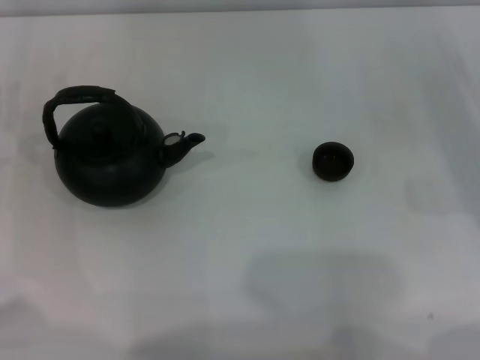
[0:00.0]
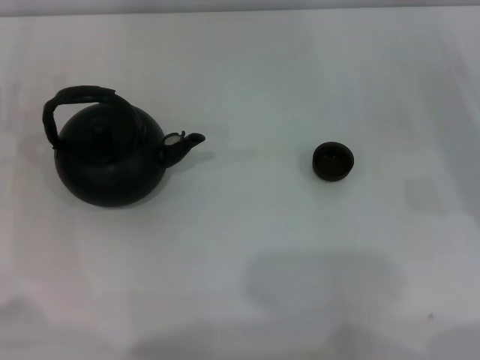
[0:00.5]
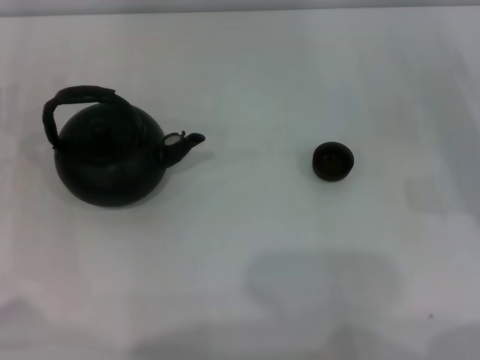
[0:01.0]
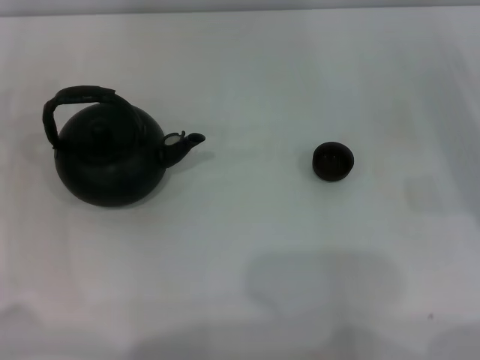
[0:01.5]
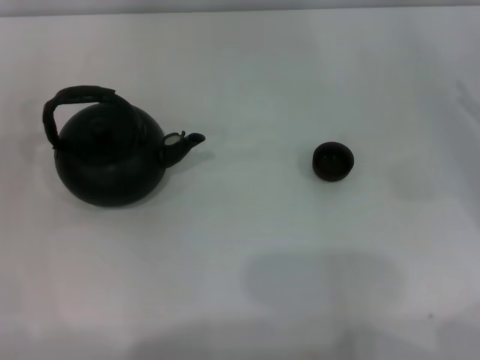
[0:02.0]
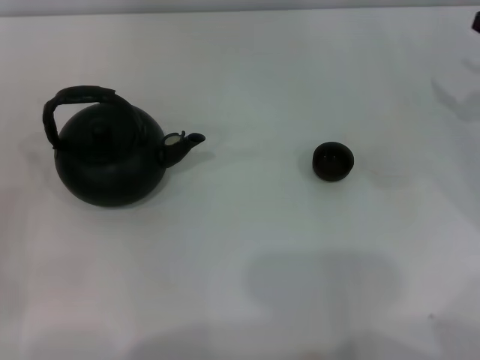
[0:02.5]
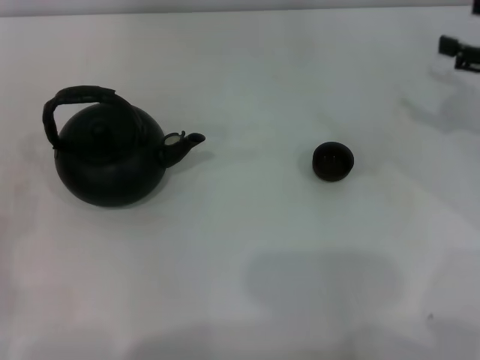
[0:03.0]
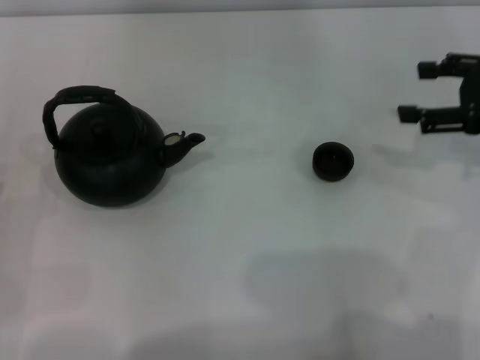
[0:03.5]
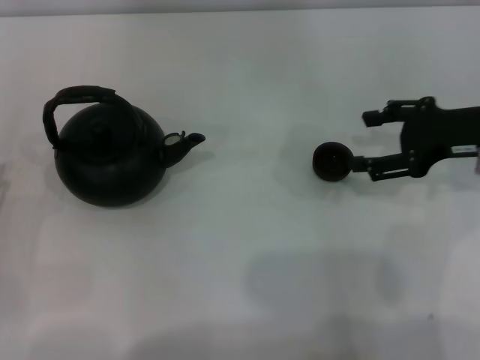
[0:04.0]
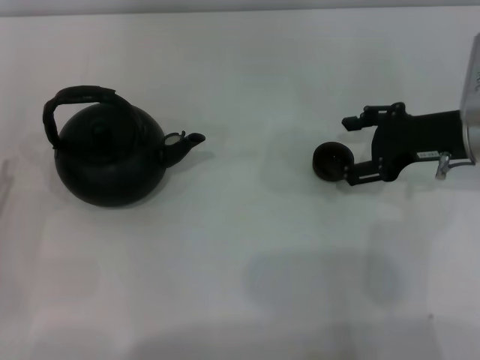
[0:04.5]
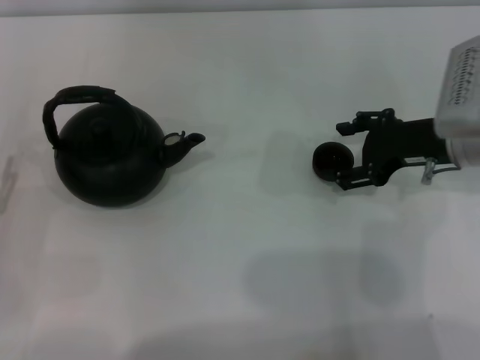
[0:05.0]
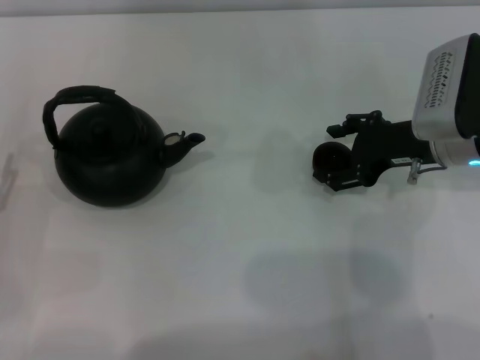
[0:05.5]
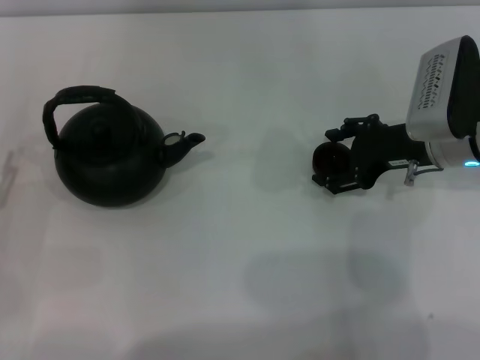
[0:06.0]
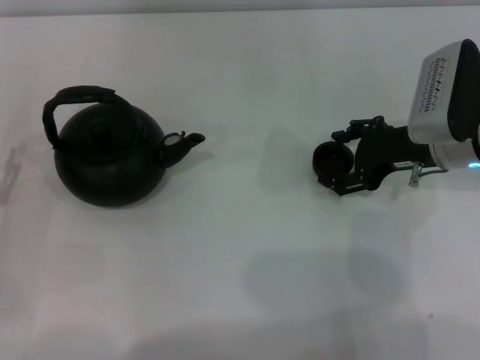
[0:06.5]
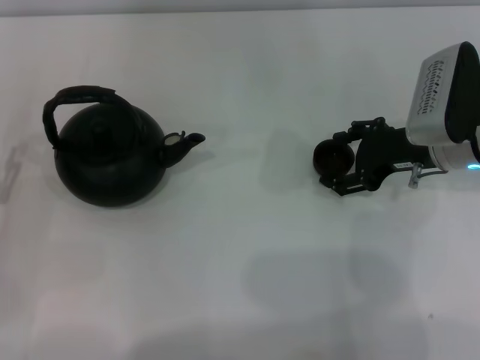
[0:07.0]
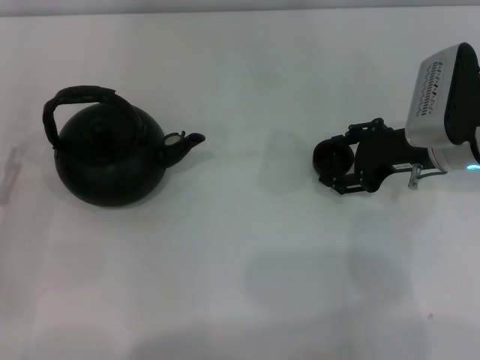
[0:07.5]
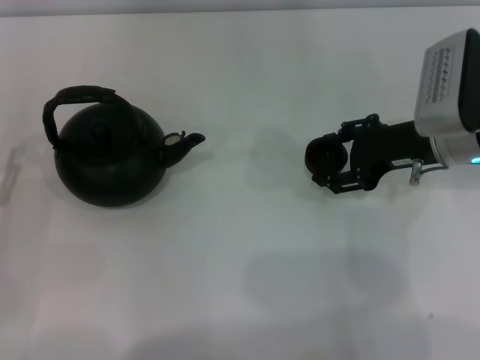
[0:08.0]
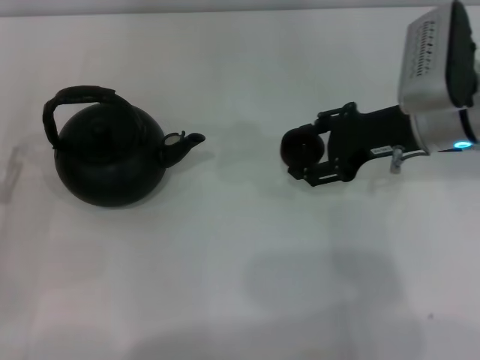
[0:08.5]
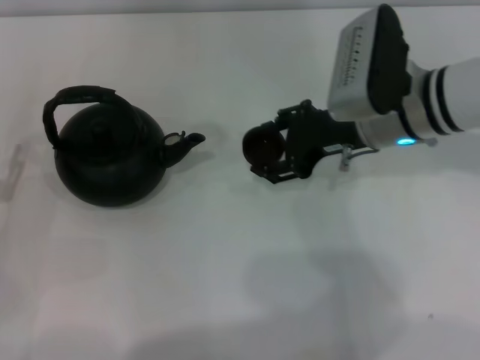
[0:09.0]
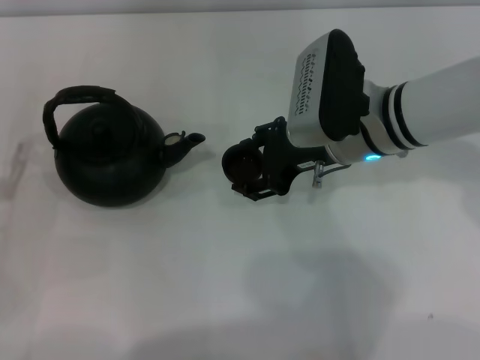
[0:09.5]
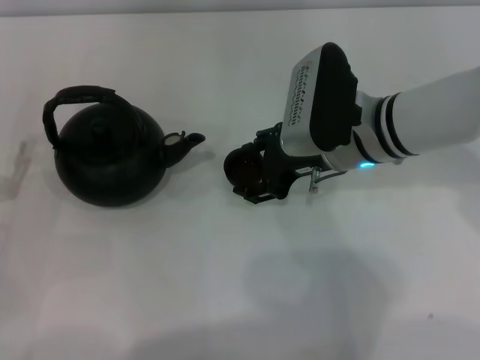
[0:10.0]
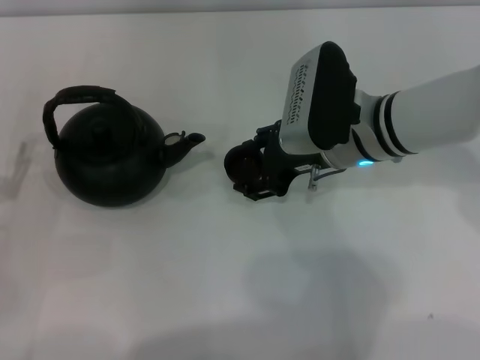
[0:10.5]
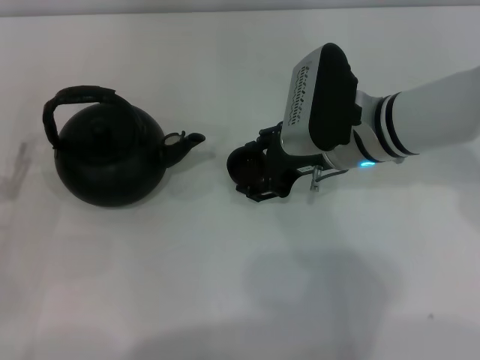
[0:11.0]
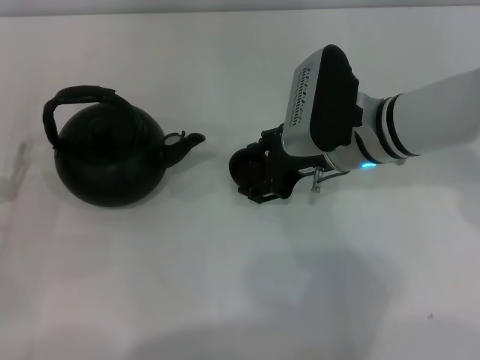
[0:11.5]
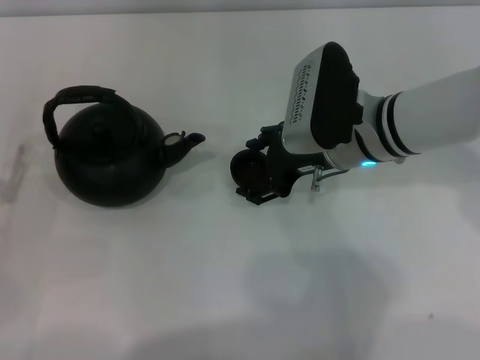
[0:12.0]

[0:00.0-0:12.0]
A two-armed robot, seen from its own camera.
Task of the whole recording: Grasp the handle of the teapot with one hand and pour tea into the teacup.
Step, 0:00.0 to 0:08.5: Pick up the teacup with the right gripper.
0:02.0 to 0:04.0: The right gripper shifts some 10 cm to the left and upward.
0:04.0 to 0:06.0: The right gripper shifts roughly 5 cm to the left.
0:06.0 to 0:08.0: The right gripper closes.
0:08.0 to 0:10.0: The right gripper travels to the left by roughly 10 cm.
0:10.0 to 0:12.0: The right gripper opens up.

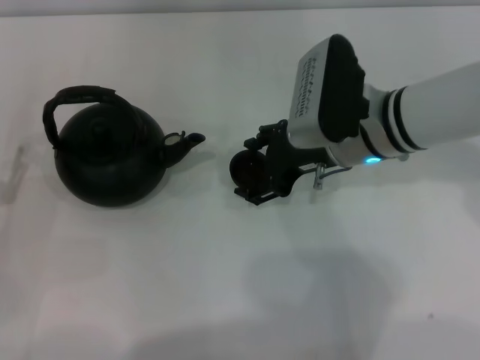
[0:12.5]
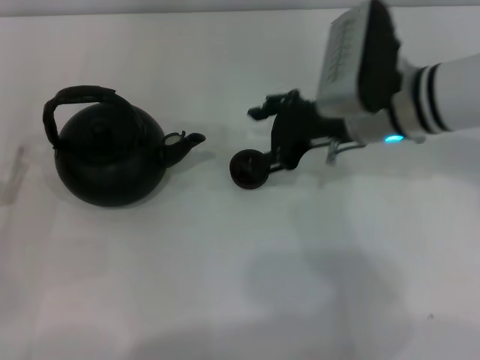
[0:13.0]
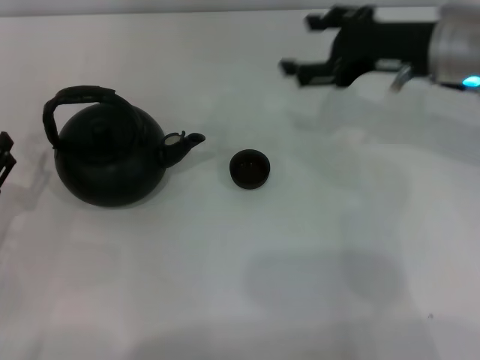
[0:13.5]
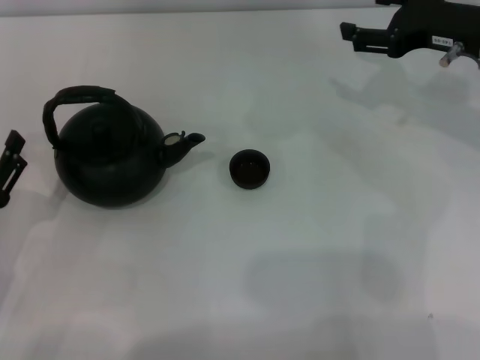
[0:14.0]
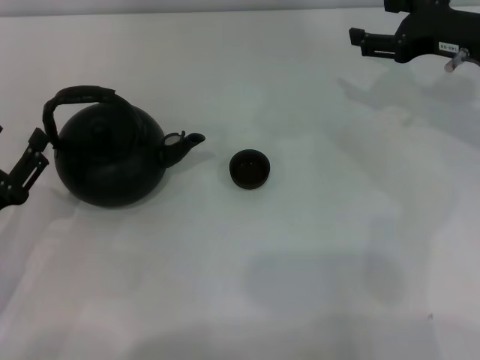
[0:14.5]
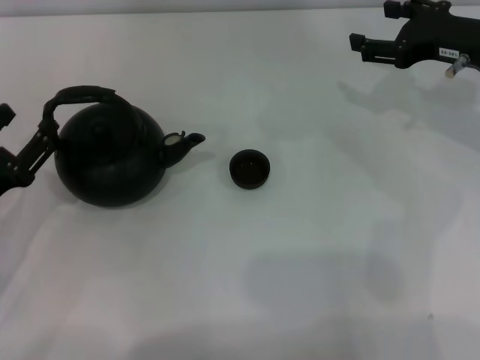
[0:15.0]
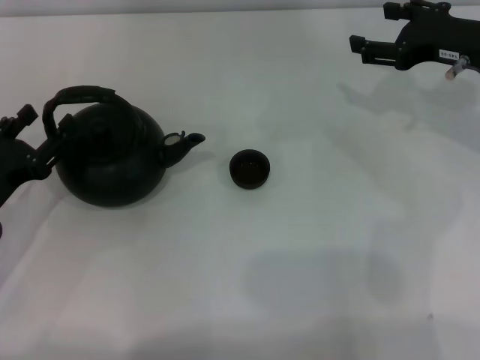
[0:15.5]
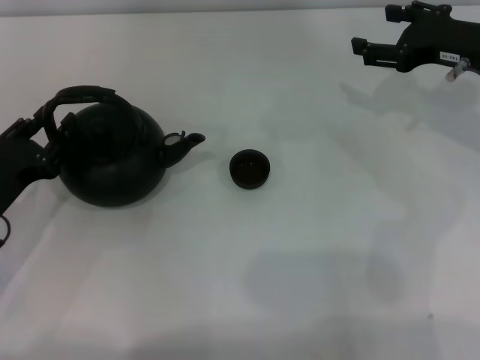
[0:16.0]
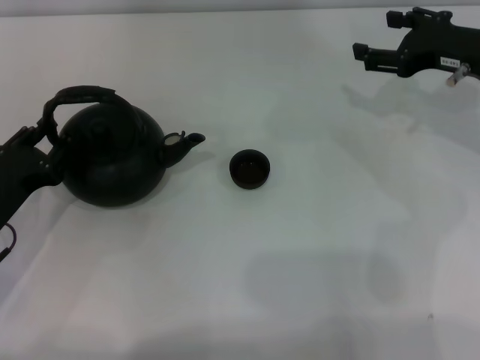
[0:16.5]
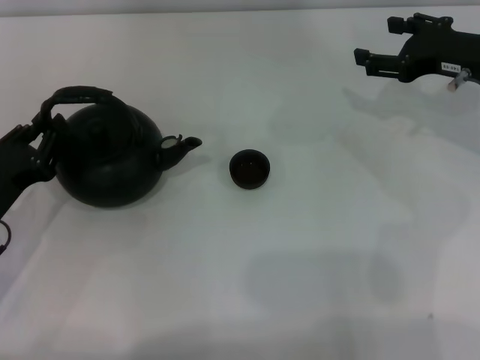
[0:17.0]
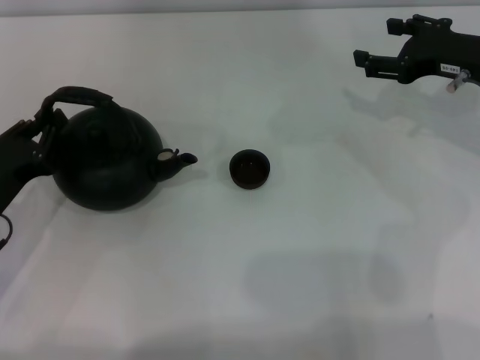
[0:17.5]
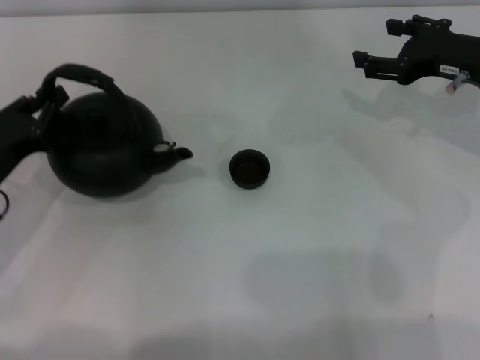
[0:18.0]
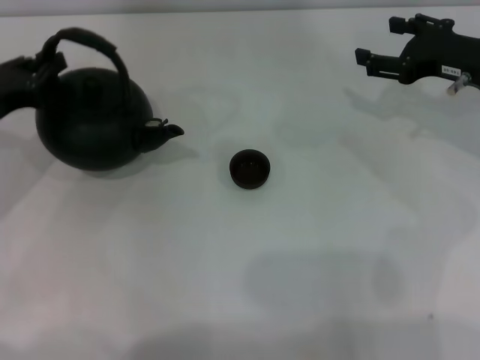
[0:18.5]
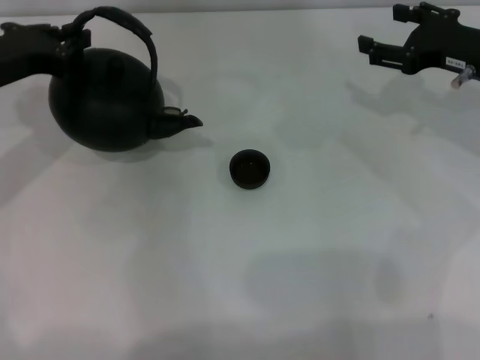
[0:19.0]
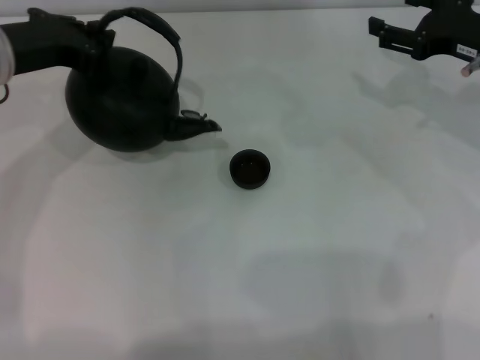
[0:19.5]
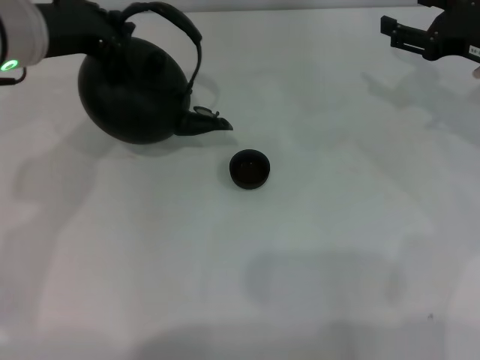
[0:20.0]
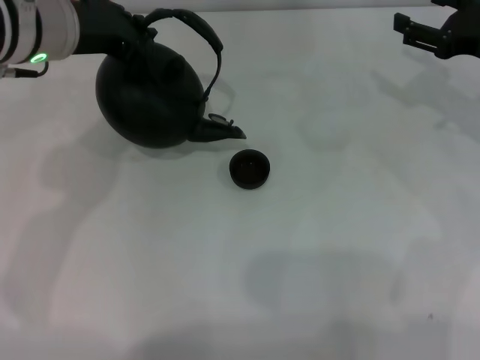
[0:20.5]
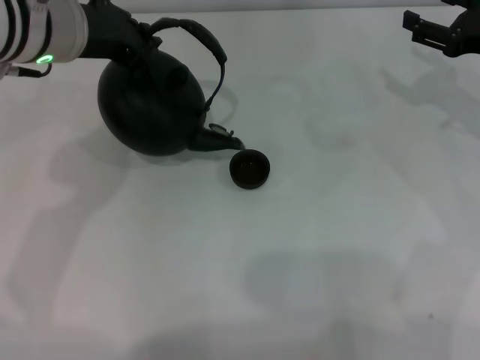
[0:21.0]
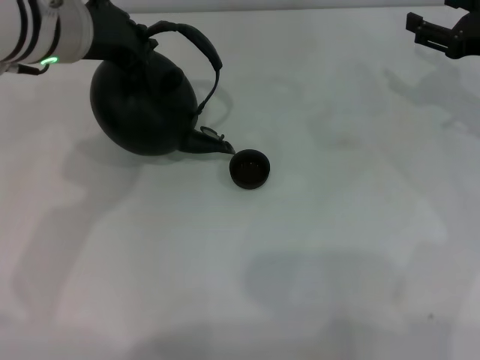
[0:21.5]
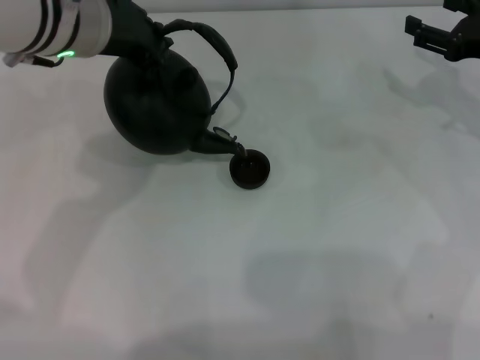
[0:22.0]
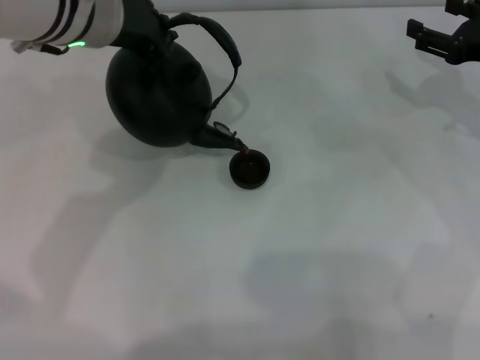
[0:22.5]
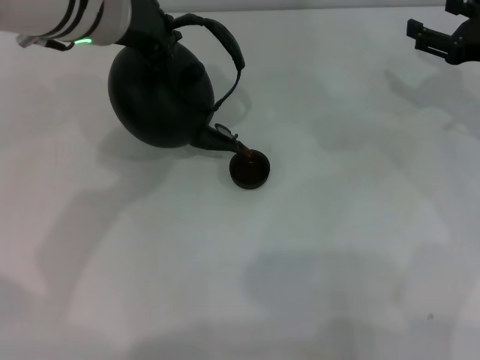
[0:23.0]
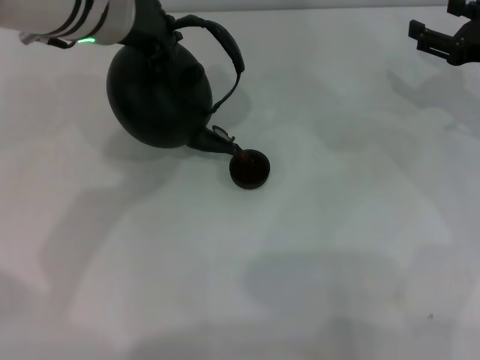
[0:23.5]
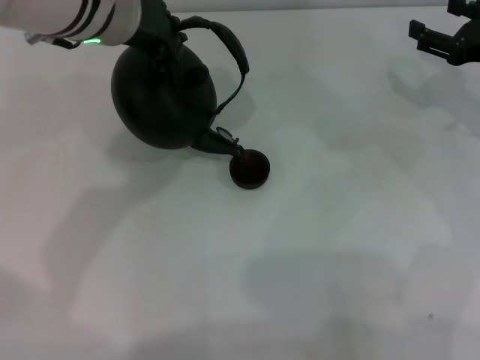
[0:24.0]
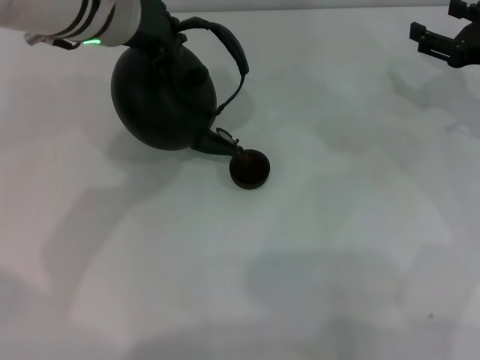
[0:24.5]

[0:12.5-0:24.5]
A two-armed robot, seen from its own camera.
Task of the whole recording: Grasp the handle of the teapot with one hand and pour tea into the teacup.
Step, 0:13.5 to 0:19.0: Pick up the teapot with the left gripper.
0:12.5 to 0:14.5: The right gripper moves to the right, roughly 15 cm.
0:14.5 to 0:16.5: The left gripper closes.
0:16.5 to 0:18.5: The left gripper heads forward and upward, covering approximately 10 cm, and closes its fingers.
0:18.5 to 0:20.5: The left gripper is displaced to the right, upward and forward by approximately 20 cm.
0:20.5 to 0:22.5: The grippers move only a little.
0:22.5 to 0:24.5: The grippers move only a little.

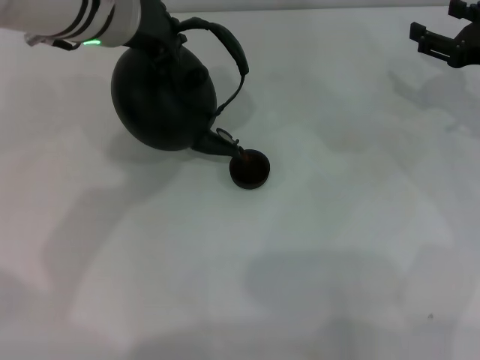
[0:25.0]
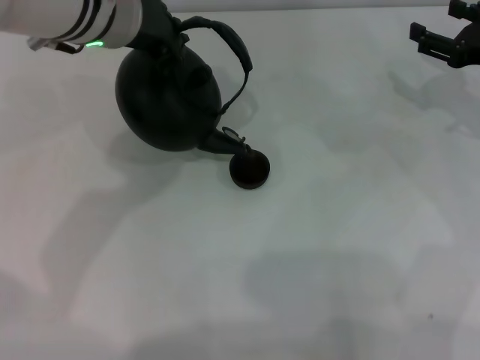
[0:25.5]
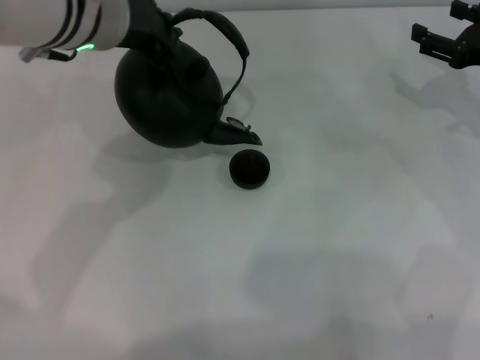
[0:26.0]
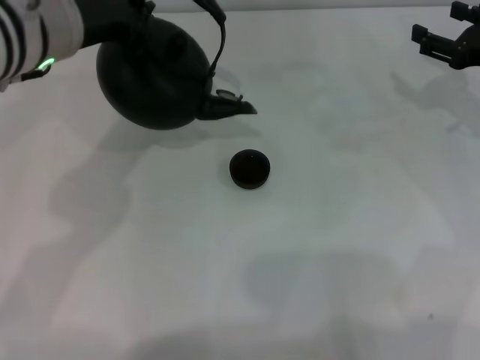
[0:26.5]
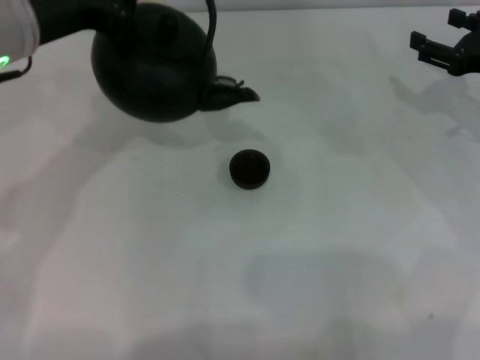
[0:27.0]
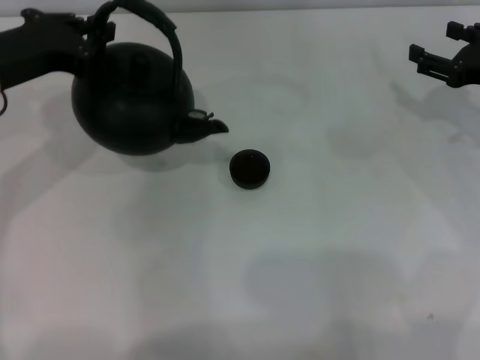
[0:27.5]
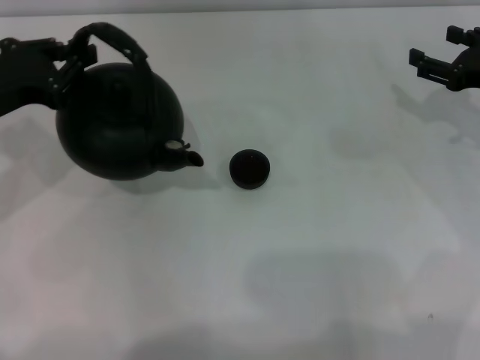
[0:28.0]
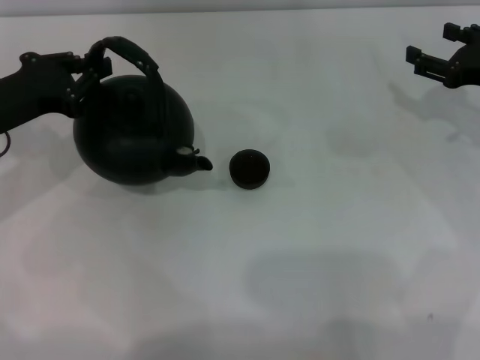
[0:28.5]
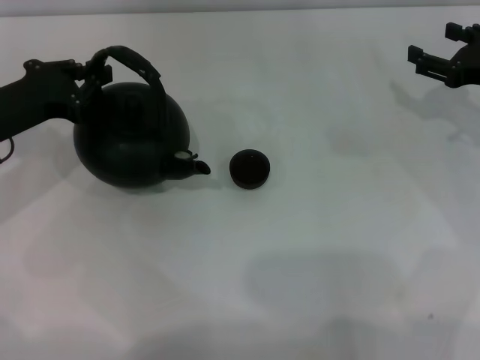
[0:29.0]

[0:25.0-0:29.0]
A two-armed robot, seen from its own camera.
Task of the whole recording: Grasp the handle of the teapot with one hand and pour tea into the teacup.
0:25.0 to 0:27.0: The left gripper moves to the left, about 10 cm.
0:27.0 to 0:29.0: The left gripper shifts some 15 cm downward and to the left.
